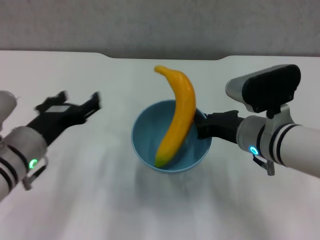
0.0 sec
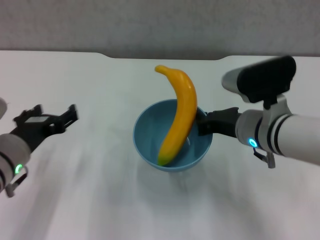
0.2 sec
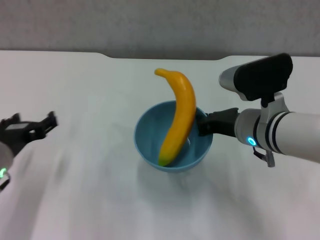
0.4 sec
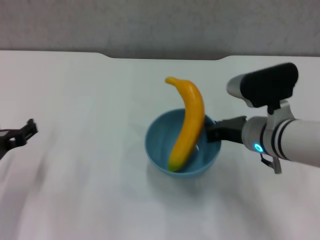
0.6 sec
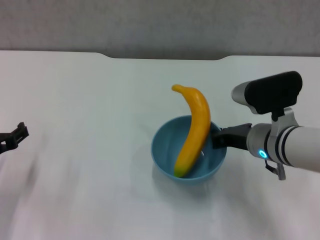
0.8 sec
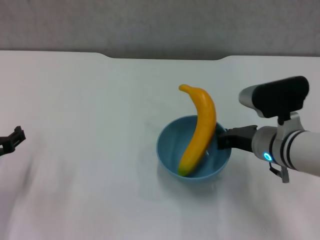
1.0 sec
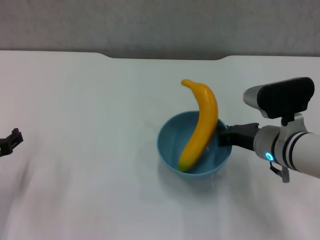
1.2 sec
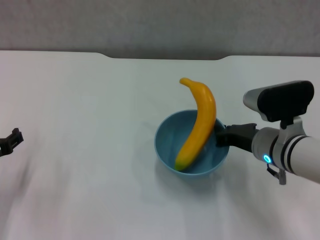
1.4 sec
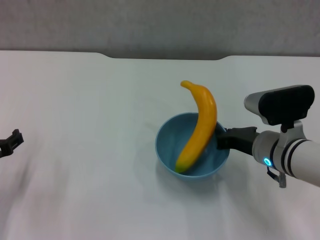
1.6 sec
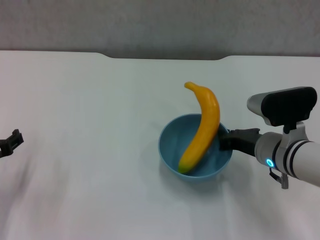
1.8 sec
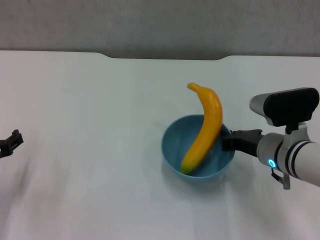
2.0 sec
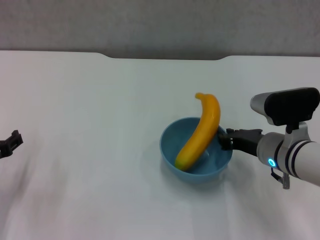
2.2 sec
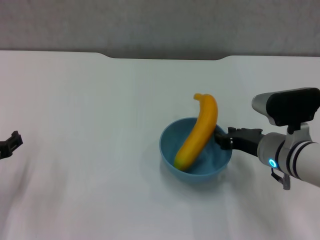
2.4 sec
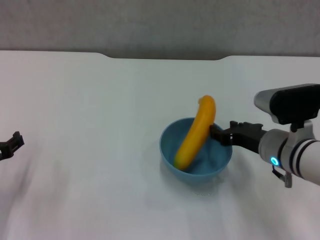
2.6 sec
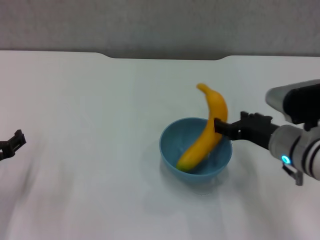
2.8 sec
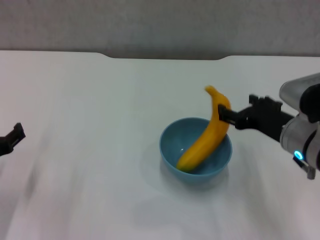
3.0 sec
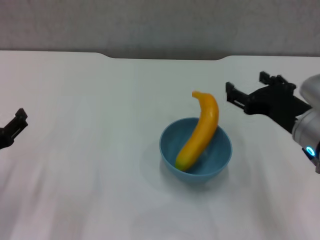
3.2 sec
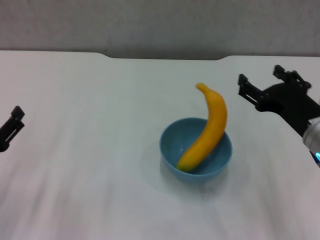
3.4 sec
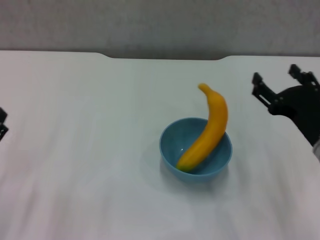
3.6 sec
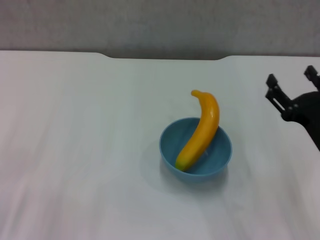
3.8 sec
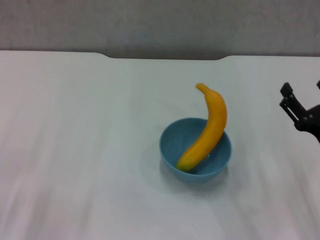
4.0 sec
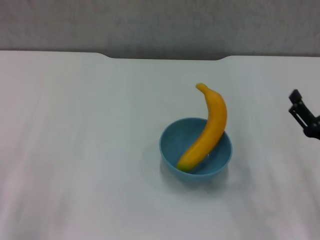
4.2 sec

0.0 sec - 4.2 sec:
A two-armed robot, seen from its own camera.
Step, 0.0 sec - 2.6 sec: Place the bowl on the table with right gripper.
0.0 sec - 1.4 sec: The left gripper shifts about 10 cm to the left.
1.4 sec - 2.8 sec: The right gripper opens.
2.8 sec - 4.2 sec: The left gripper travels backward by approximately 5 cm. Meanwhile the right gripper moves to the right and backward, roughly 10 cm, and opens.

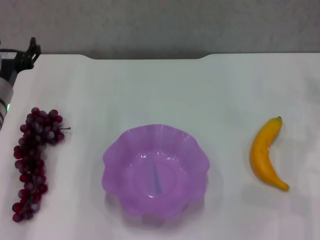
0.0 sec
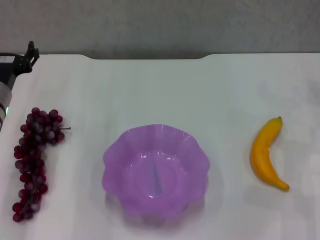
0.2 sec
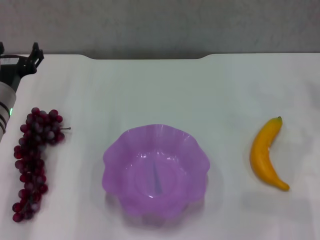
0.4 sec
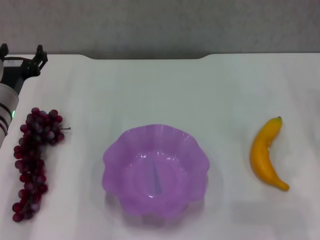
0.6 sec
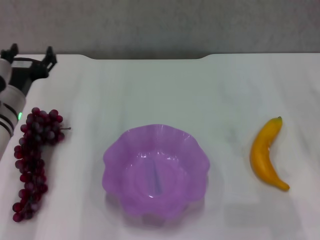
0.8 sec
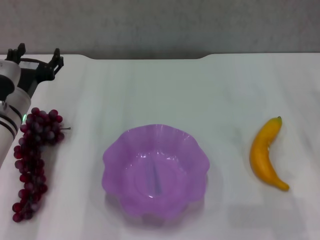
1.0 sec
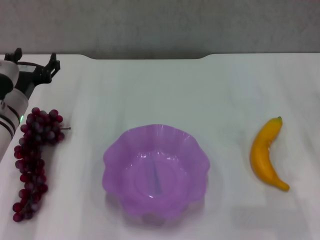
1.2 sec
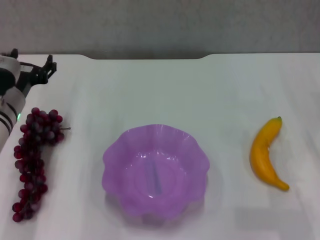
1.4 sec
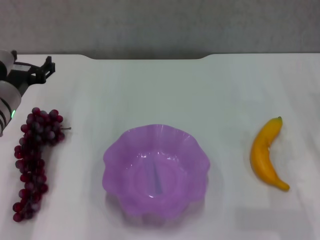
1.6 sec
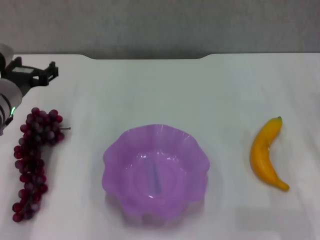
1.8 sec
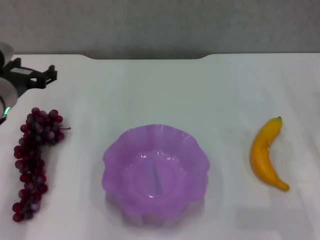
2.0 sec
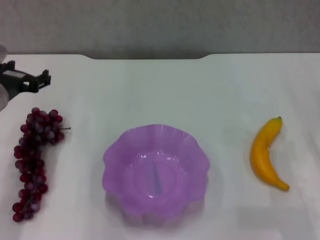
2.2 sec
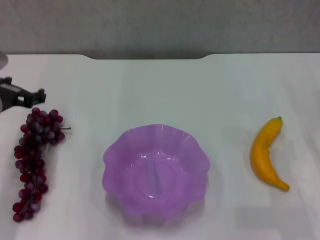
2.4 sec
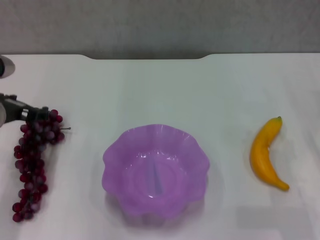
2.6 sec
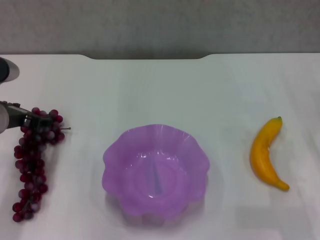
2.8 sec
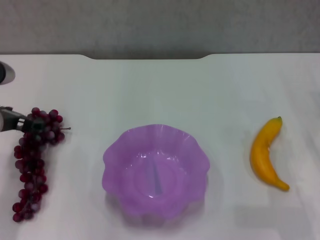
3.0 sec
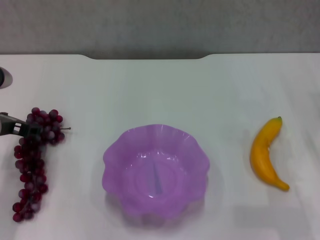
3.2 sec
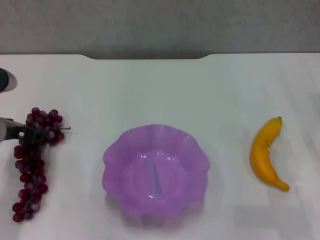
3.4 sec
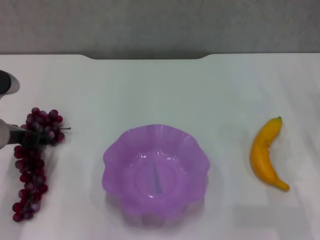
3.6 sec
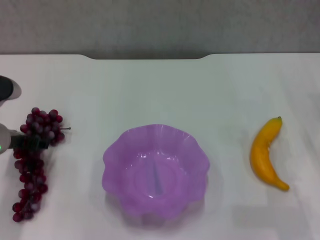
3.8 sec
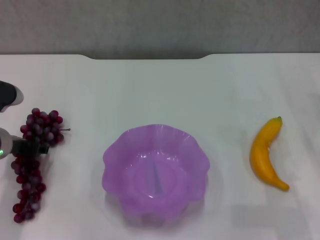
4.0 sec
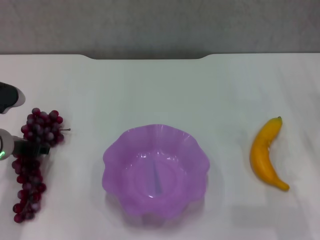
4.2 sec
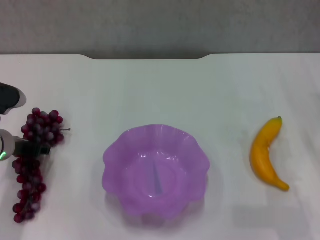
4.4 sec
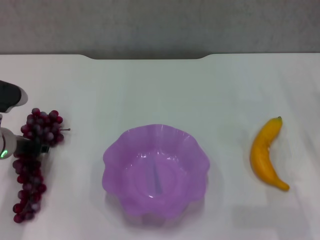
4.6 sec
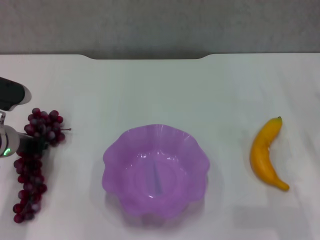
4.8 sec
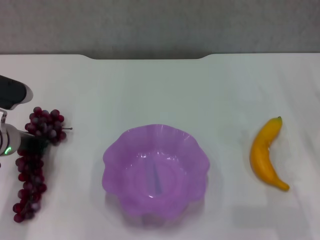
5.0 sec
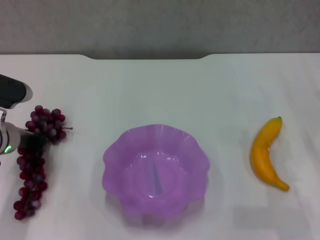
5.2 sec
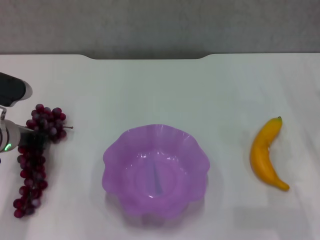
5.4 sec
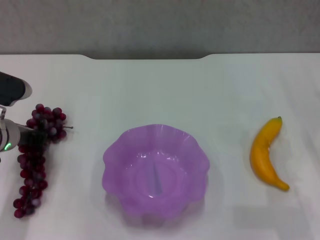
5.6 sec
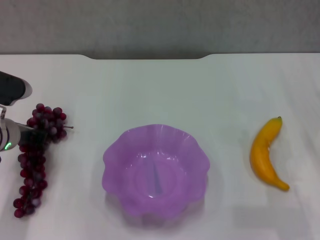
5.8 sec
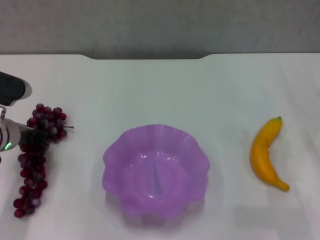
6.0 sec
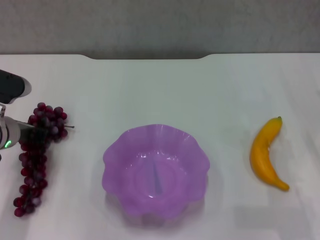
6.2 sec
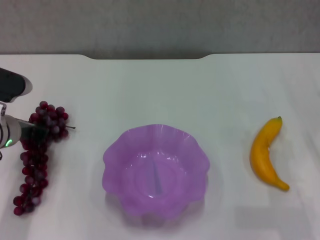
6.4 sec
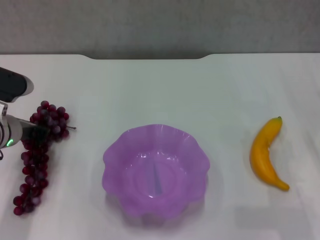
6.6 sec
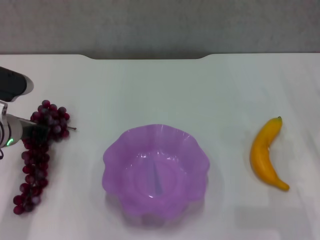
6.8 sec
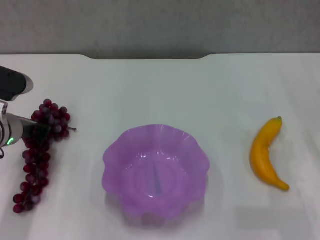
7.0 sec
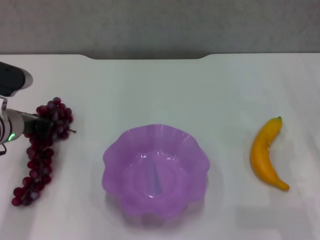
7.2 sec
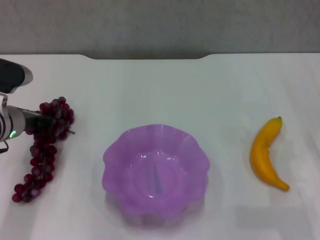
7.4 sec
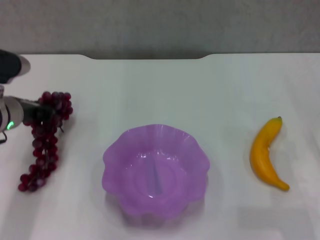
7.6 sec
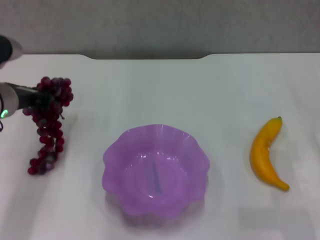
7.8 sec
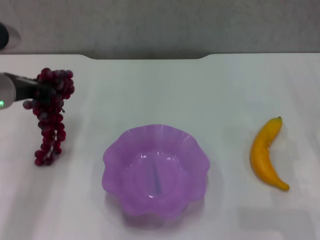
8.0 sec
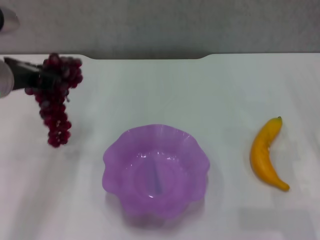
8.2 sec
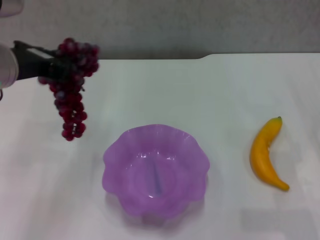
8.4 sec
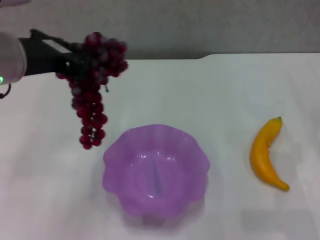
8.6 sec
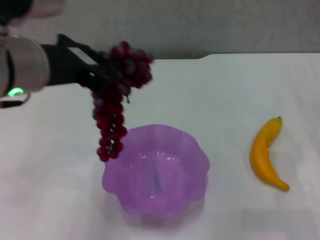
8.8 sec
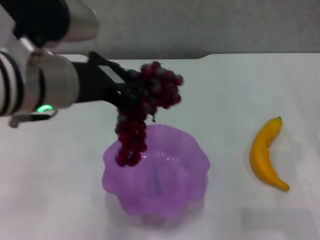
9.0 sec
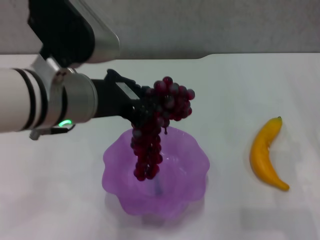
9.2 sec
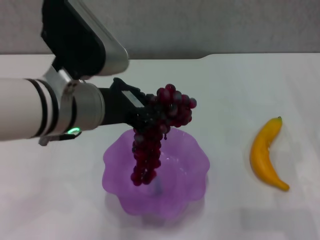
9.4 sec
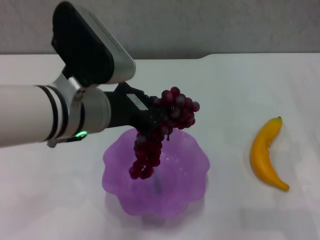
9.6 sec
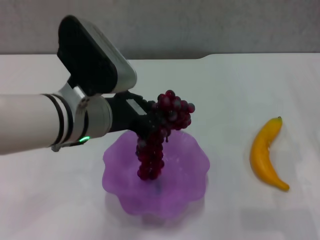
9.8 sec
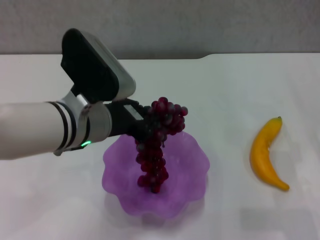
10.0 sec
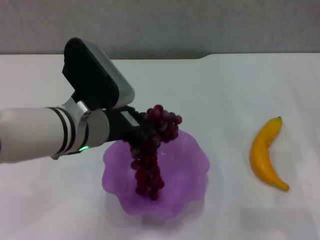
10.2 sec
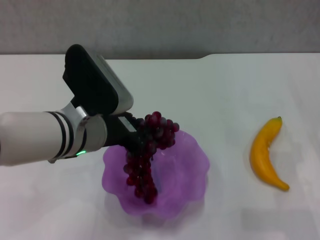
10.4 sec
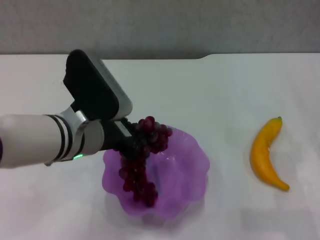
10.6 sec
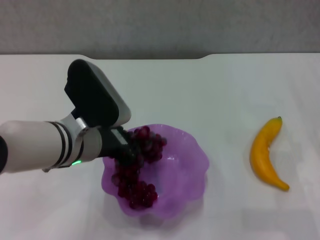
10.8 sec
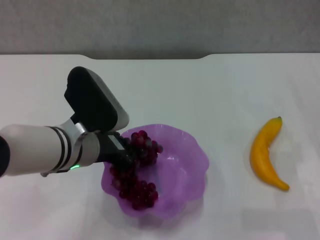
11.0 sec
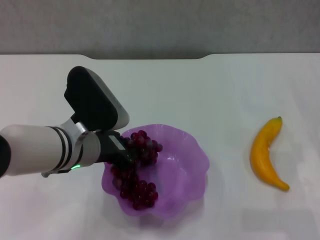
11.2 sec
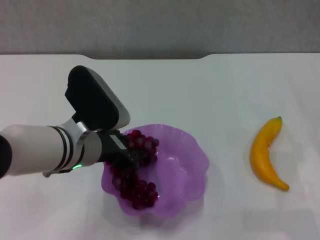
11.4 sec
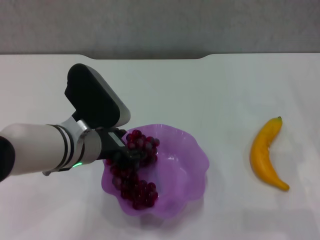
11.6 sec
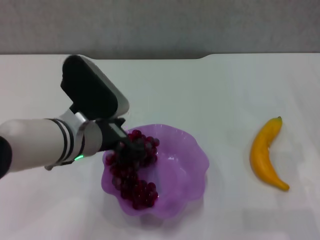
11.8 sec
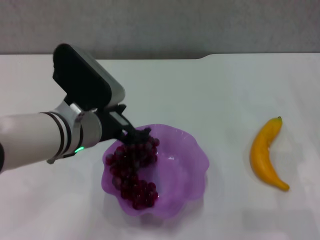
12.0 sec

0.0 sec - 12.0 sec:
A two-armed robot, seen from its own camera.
Step, 0.0 sec - 5.0 sec: Grasp the grape with left gripper.
Step, 5.2 sec - 11.6 sec: Place the grape in the purple plate with left gripper.
0.0 sec - 1.6 sec: The grippers stay close to where they were, moving slightly.
3.0 sec - 4.4 sec: The grippers make only small movements.
4.4 sec - 6.0 sec: The left gripper closes its fingers.
6.0 sec - 7.6 sec: The grippers stay close to where they were, moving slightly.
7.6 sec - 9.0 sec: The left gripper shifts roughly 20 cm upward, to the right and backward.
9.0 sec - 10.4 sec: The left gripper moves downward, some 10 cm.
10.4 sec - 12.0 sec: The left gripper opens up.

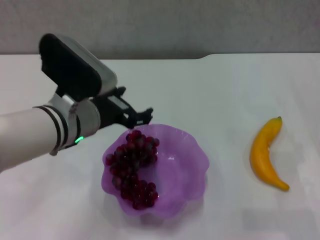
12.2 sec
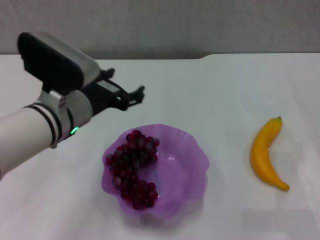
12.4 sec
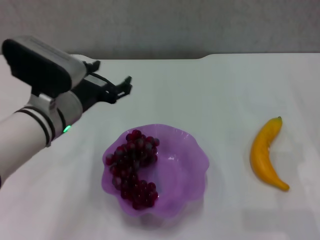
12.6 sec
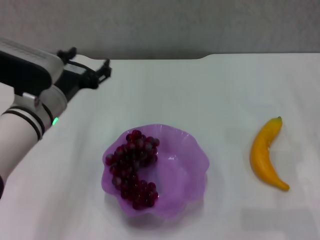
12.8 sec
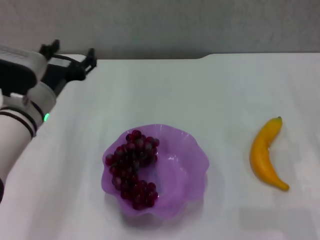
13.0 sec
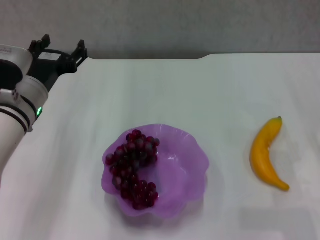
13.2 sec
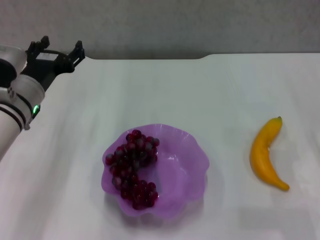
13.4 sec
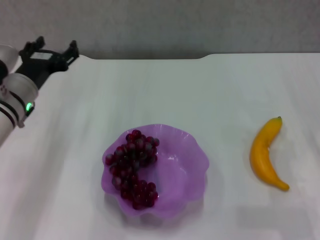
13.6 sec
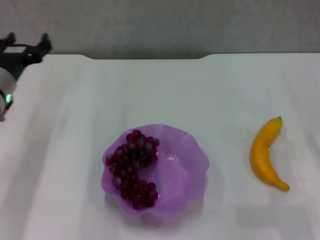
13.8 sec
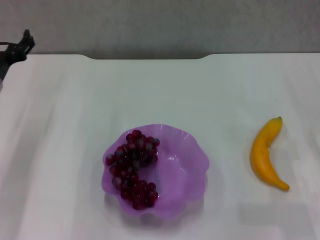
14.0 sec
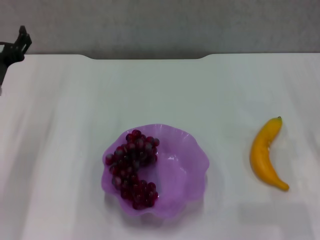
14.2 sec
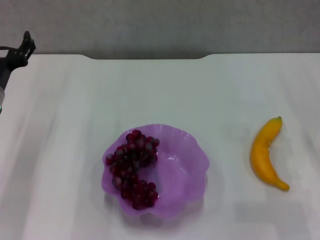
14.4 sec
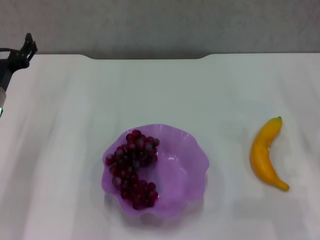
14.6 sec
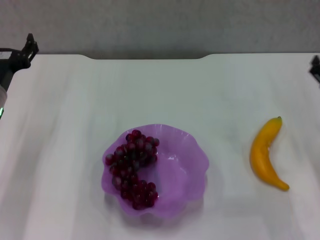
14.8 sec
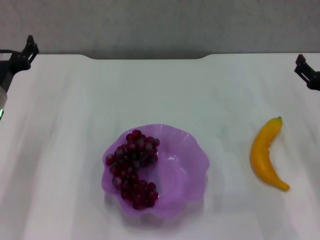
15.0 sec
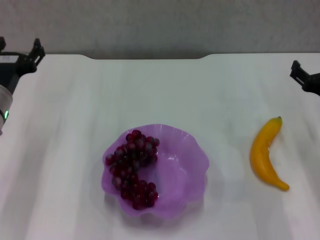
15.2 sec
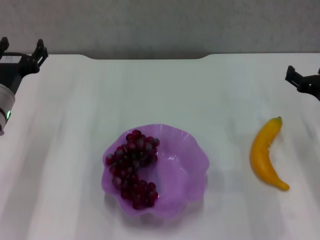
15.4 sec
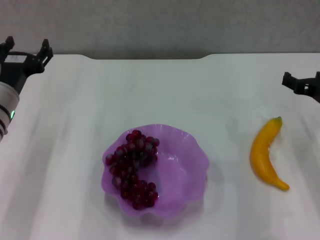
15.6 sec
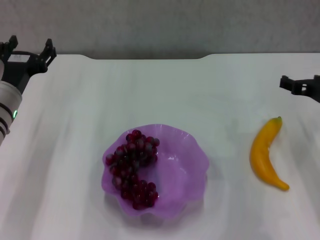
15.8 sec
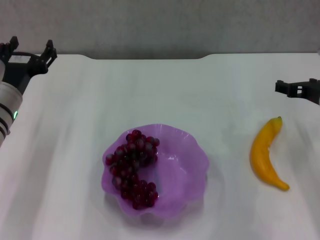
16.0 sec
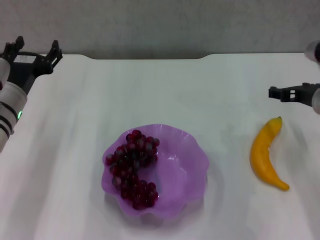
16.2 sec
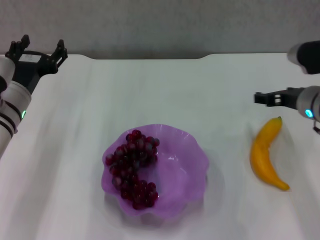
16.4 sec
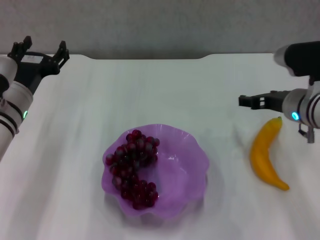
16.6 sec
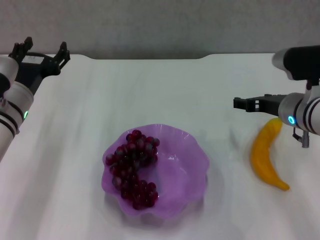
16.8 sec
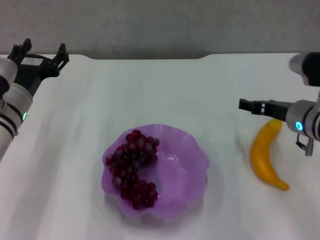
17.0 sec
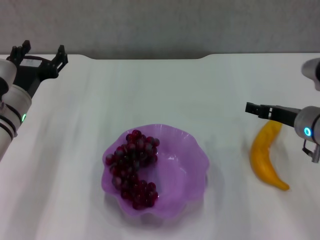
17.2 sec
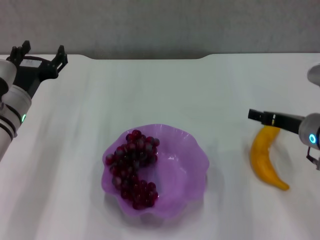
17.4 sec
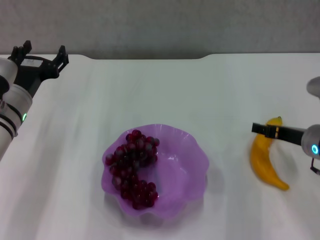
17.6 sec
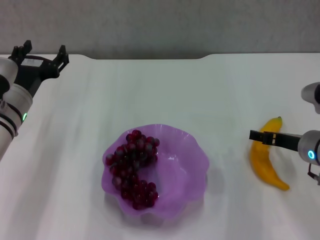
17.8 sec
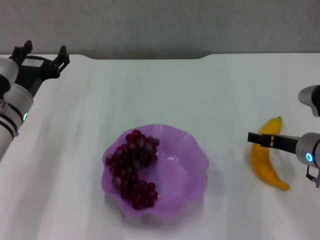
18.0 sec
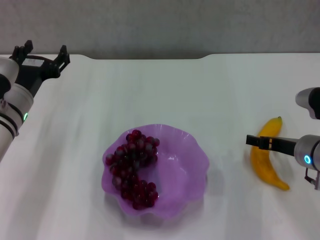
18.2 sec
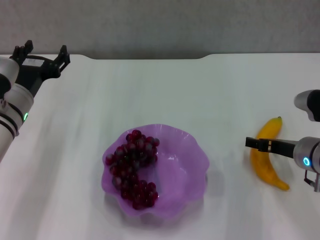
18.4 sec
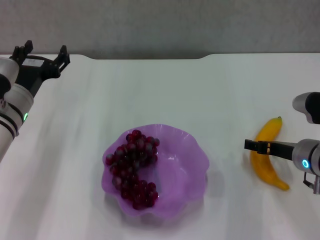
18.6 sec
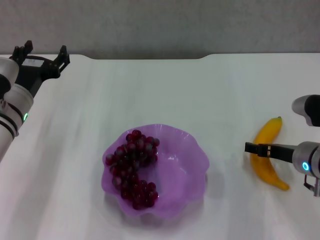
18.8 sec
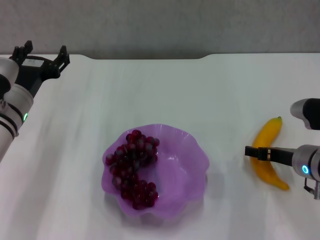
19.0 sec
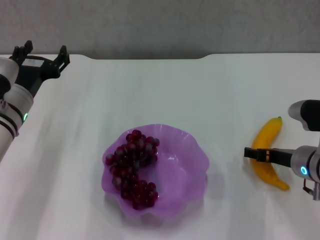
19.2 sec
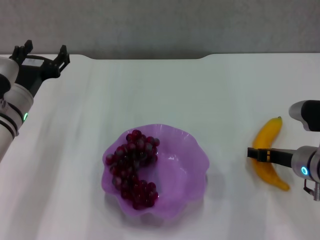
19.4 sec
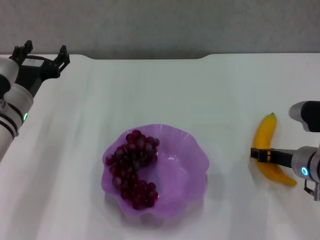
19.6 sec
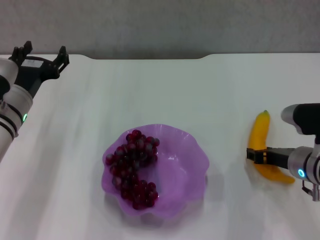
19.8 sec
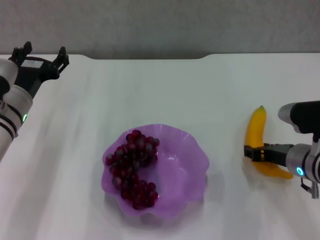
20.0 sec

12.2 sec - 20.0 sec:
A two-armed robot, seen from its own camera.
Step, 12.2 sec - 19.4 sec: Grasp the banana with right gripper.
12.2 sec - 13.8 sec: The left gripper travels to the left and forward by about 15 cm.
13.8 sec - 15.4 sec: The right gripper shifts by about 5 cm.
15.4 sec - 16.8 sec: The right gripper travels to the left by about 10 cm.
16.8 sec - 18.4 sec: The right gripper changes place by about 5 cm.
18.4 sec - 20.0 sec: The right gripper closes.
